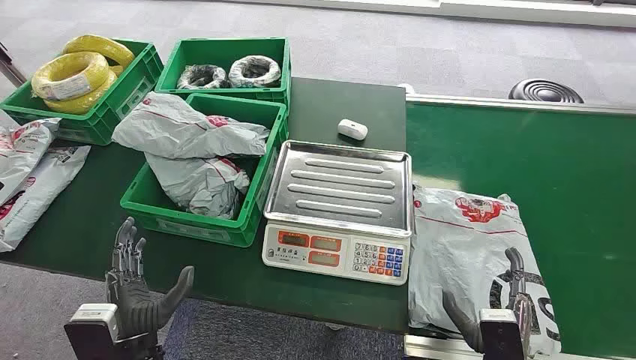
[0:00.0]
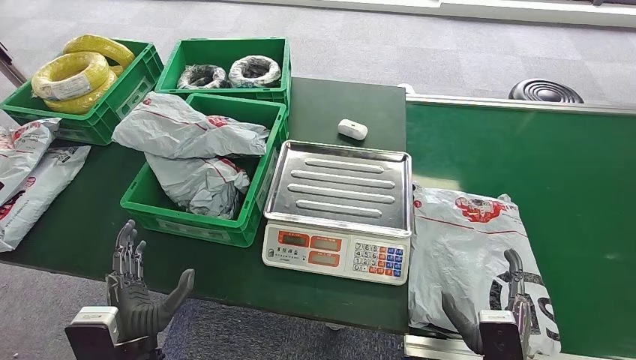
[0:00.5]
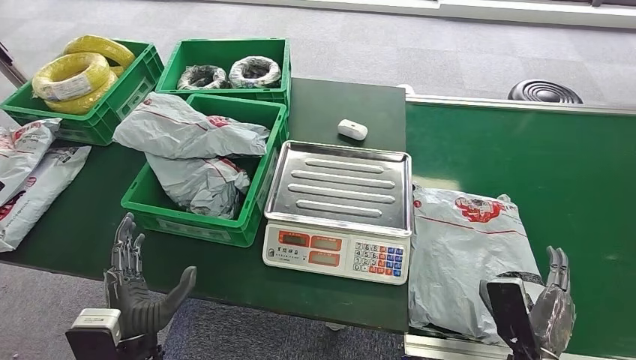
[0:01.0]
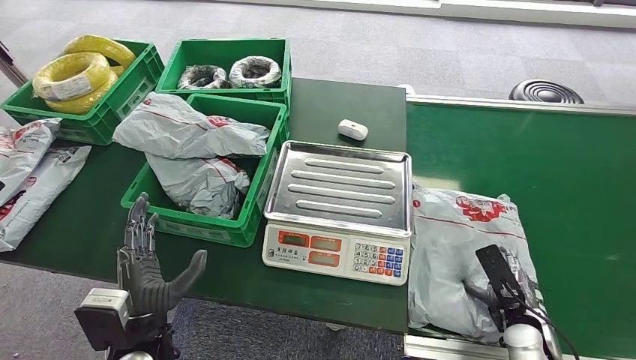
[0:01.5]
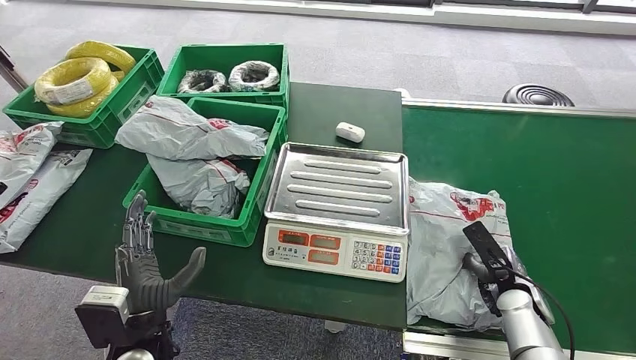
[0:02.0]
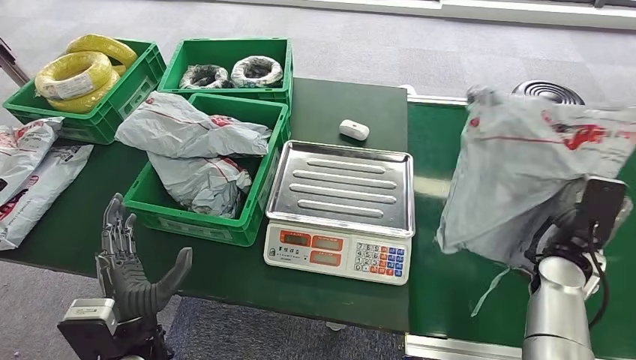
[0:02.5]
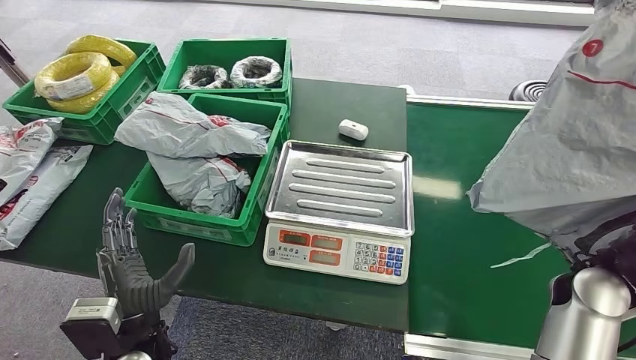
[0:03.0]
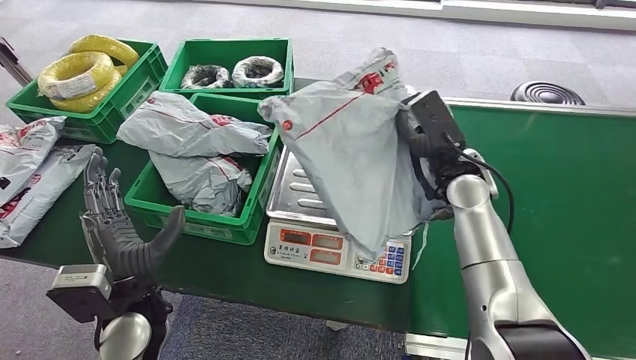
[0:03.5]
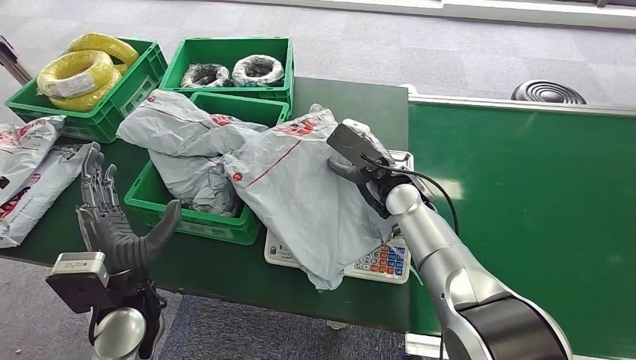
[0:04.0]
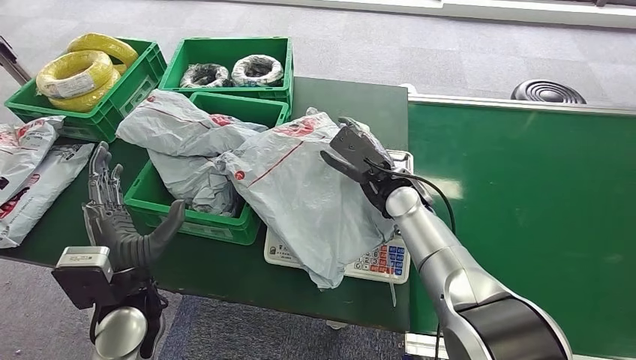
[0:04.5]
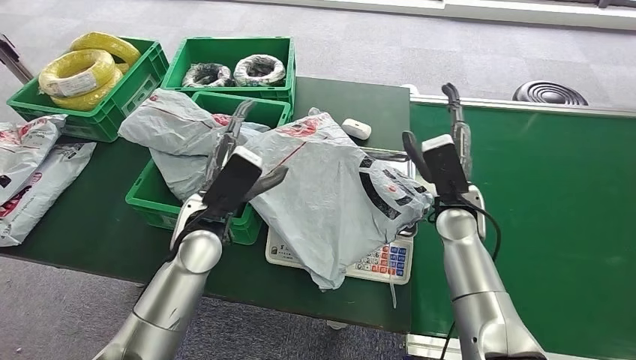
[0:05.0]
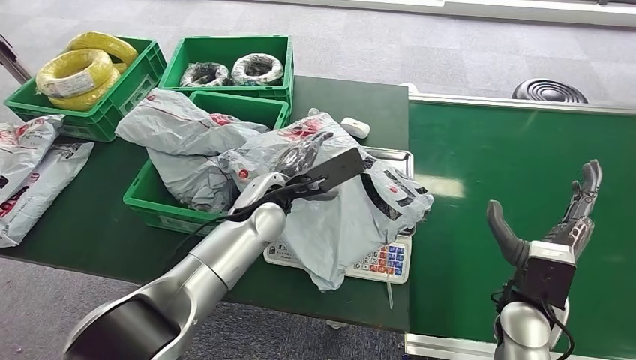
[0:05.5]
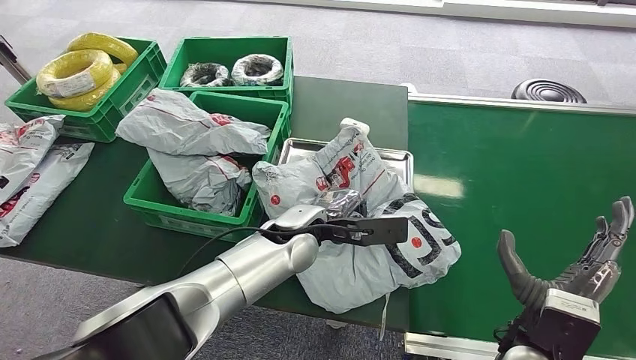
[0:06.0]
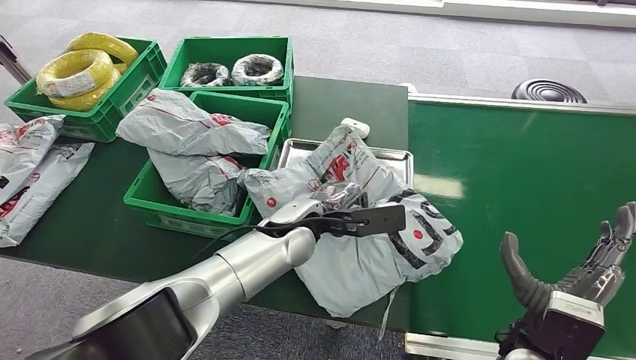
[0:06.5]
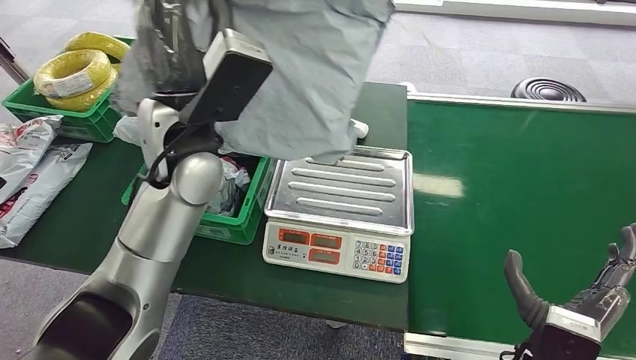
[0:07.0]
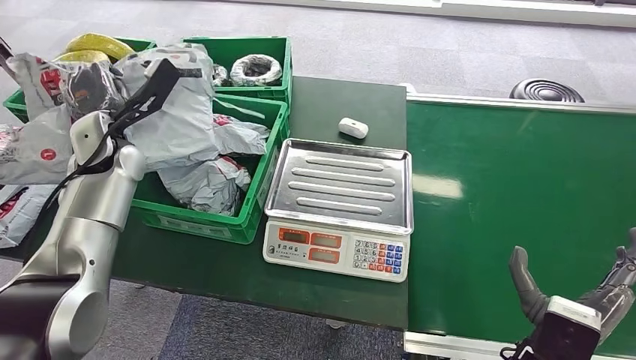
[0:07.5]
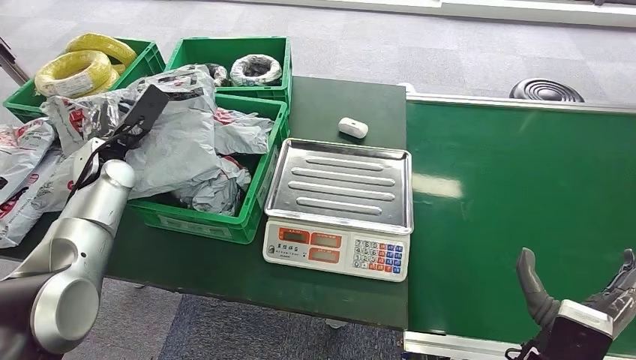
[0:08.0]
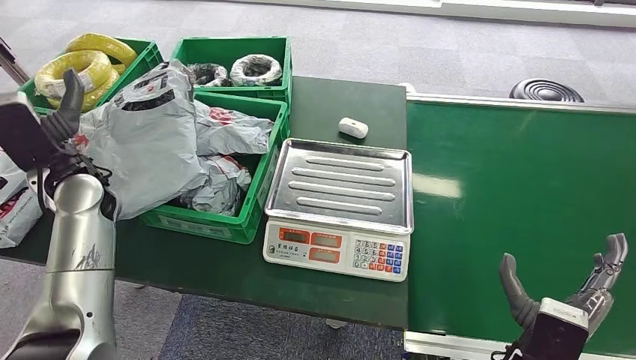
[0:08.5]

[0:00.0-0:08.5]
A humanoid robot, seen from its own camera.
Step, 0:00.0 to 0:02.5: Pick up the package from the conveyor belt.
Step, 0:03.0 to 0:05.0: Place the package onto the inbound machine.
Step, 0:05.5 to 0:07.0: Pick up the package from the inbound machine.
Step, 0:07.5 to 0:08.5: Place the package into the parcel locker.
